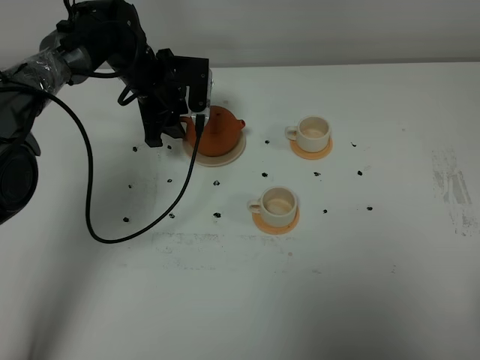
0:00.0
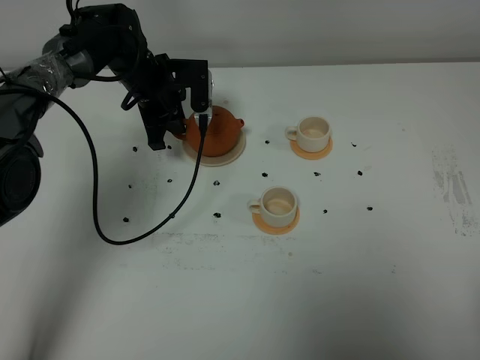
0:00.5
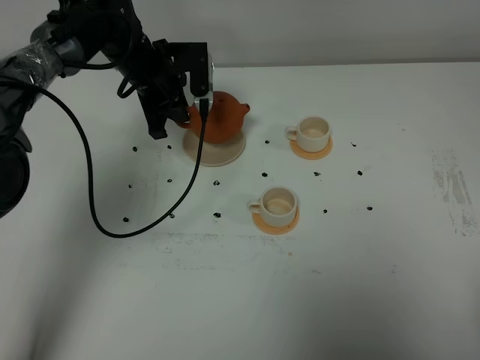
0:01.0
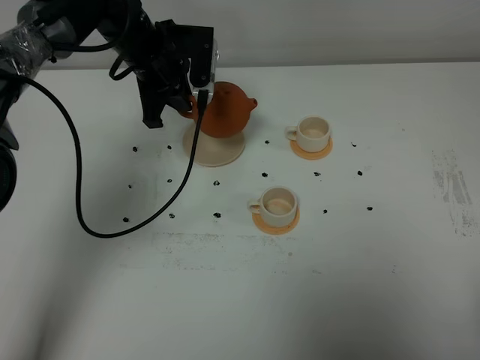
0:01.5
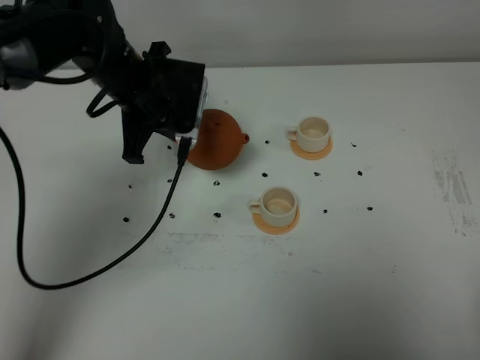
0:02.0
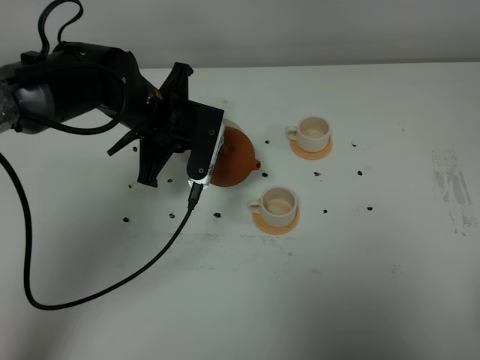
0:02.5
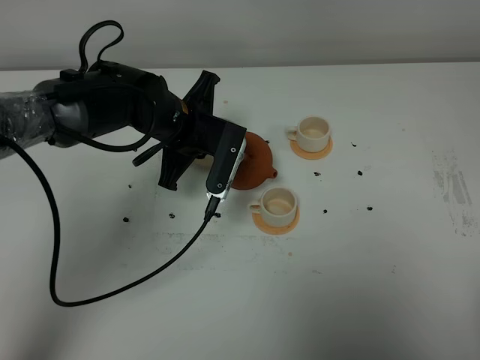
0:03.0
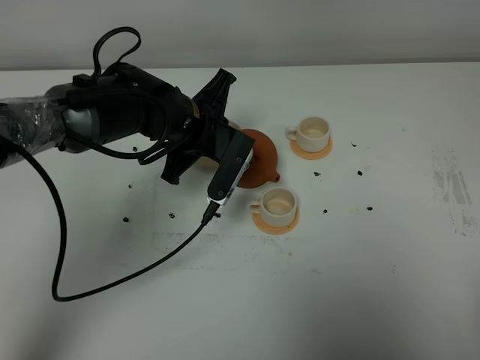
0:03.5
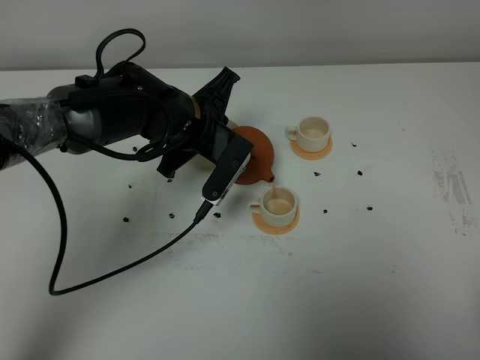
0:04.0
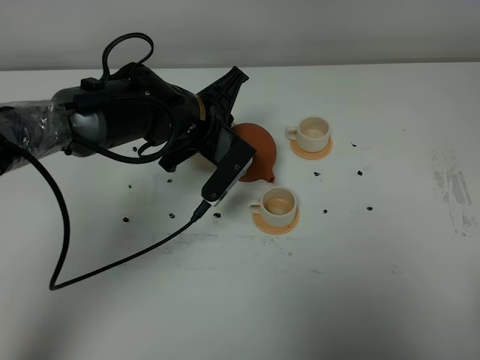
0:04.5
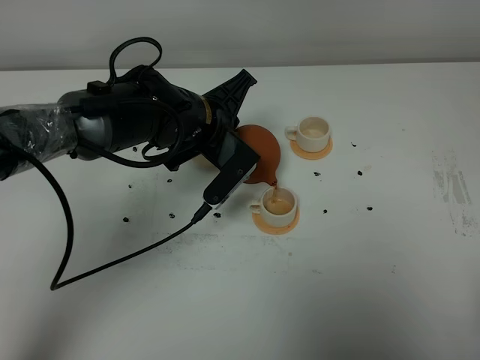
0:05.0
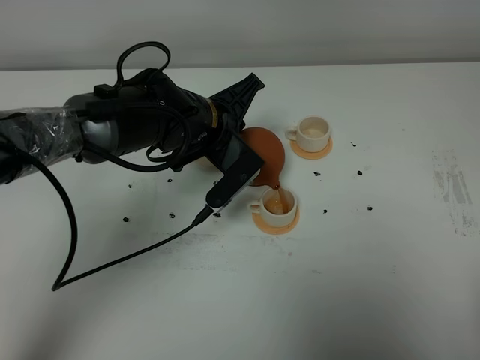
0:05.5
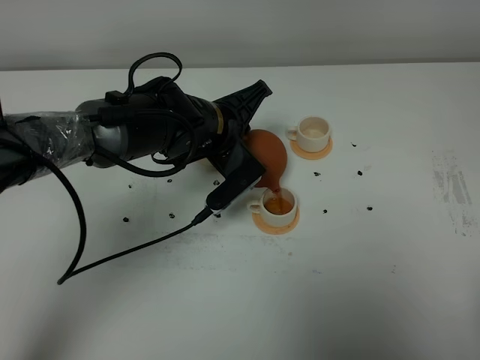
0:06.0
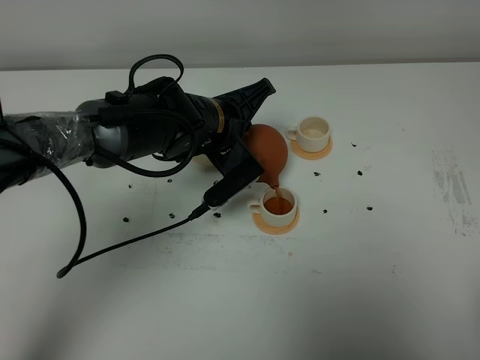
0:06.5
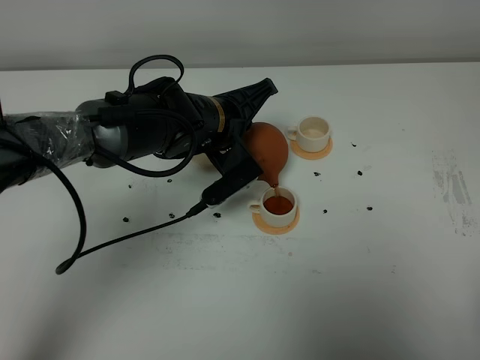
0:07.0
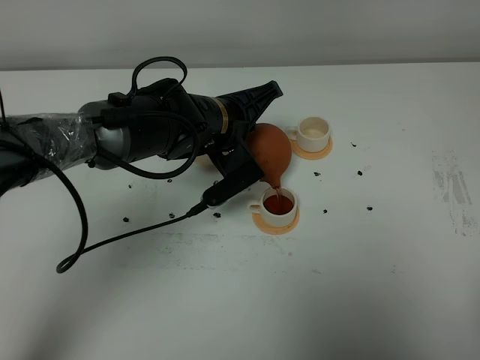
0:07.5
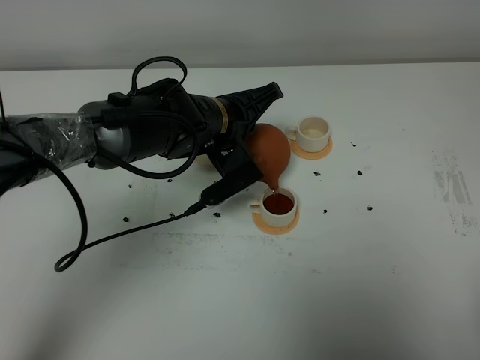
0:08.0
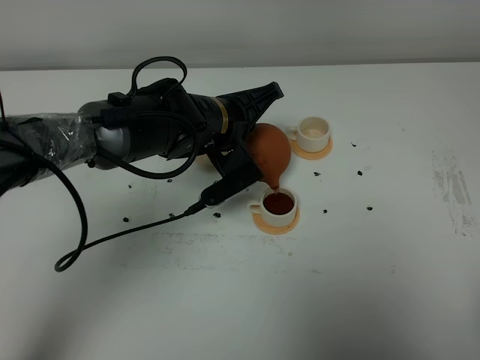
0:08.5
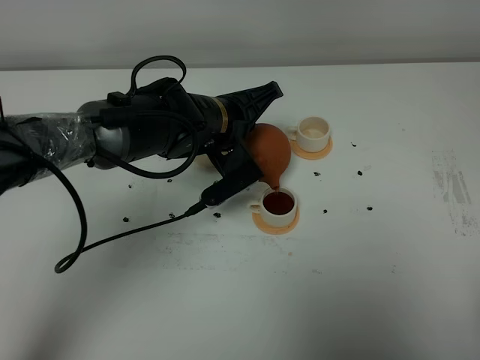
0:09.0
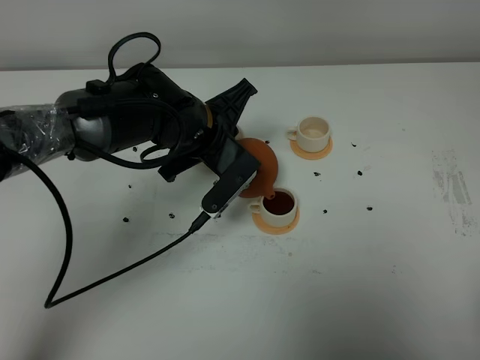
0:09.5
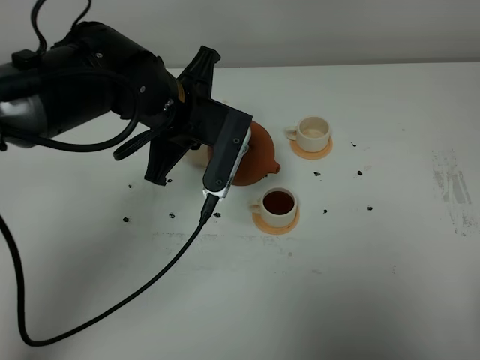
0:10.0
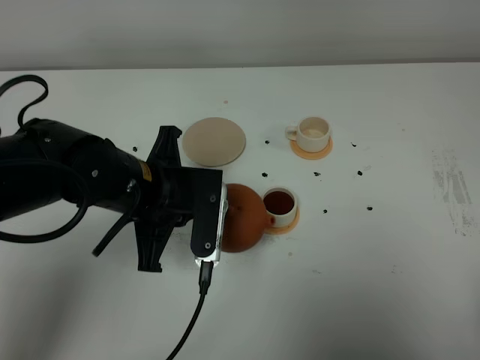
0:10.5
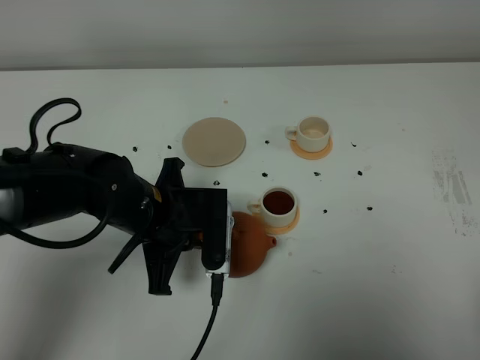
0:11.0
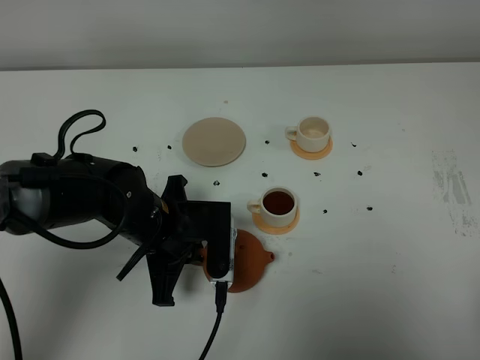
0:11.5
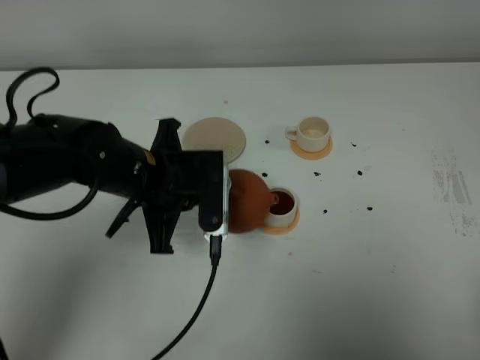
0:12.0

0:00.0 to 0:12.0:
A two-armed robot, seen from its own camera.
Task of the whole recording: grasp the brown teapot and pour the tea into the two white teacups one by one, put the brown teapot back in its original place.
Step, 0:01.0 to 0:09.5: Pour tea into the teacup with the left gripper.
0:00.0 to 0:02.0: The left gripper travels backward and upward by about 10 cm, and closes its fingers.
0:02.0 to 0:04.0: The left gripper travels to the right by about 5 cm.
0:04.0 to 0:06.0: The grippers stay close to where they were, moving slightly.
0:06.0 to 0:08.0: The grippers move only a little.
0:08.0 to 0:10.0: The left gripper shifts about 5 cm upward.
0:10.0 to 0:12.0: The left gripper shifts about 5 cm downward.

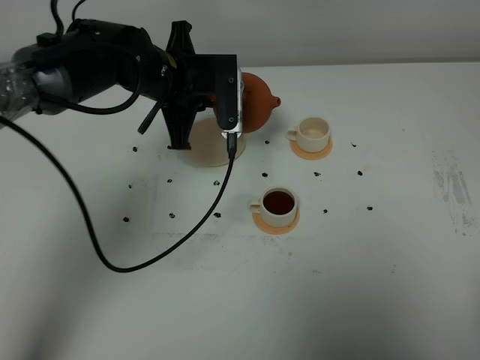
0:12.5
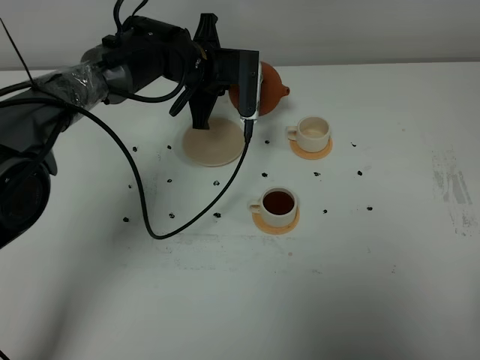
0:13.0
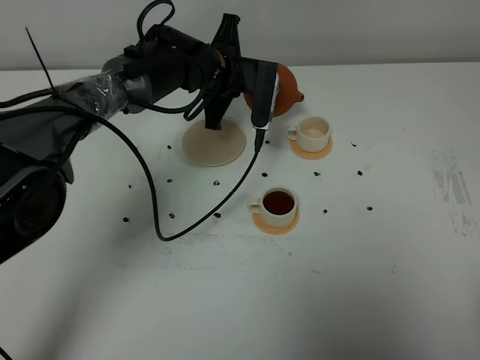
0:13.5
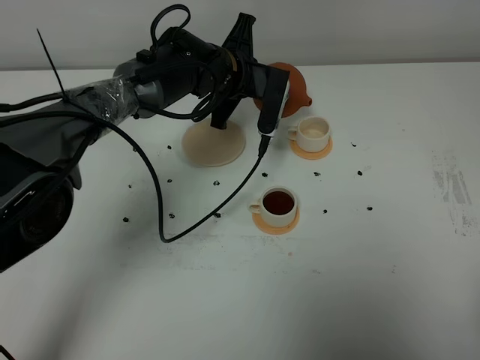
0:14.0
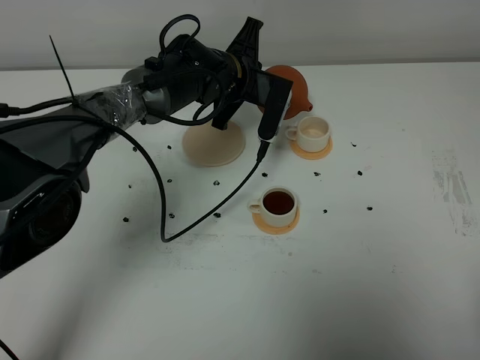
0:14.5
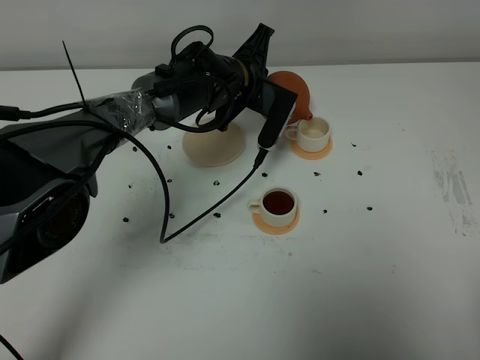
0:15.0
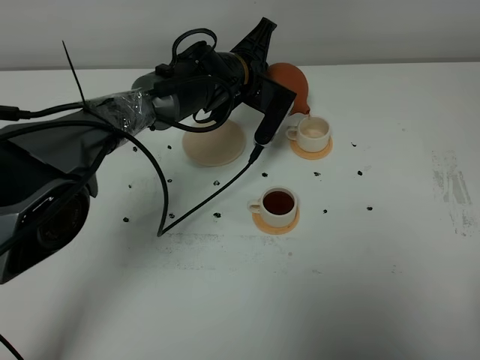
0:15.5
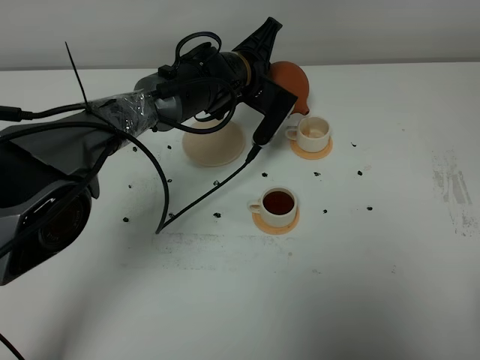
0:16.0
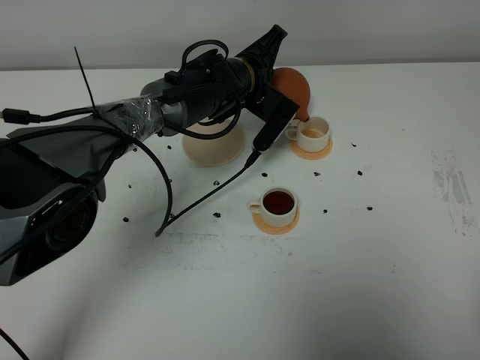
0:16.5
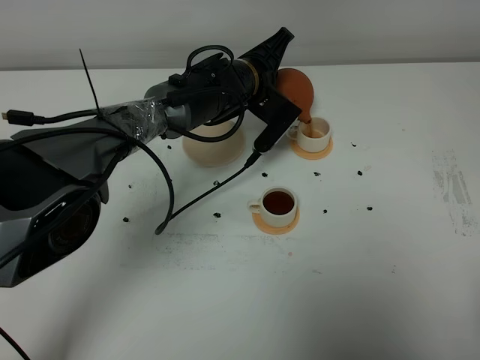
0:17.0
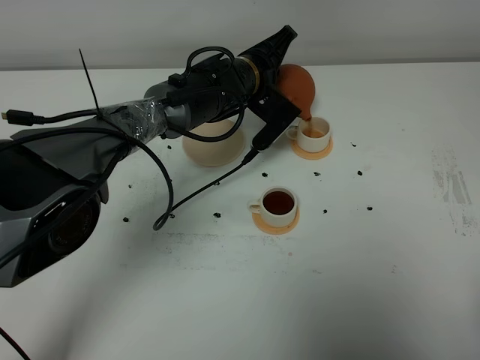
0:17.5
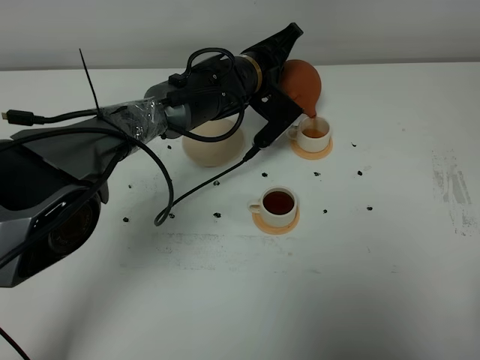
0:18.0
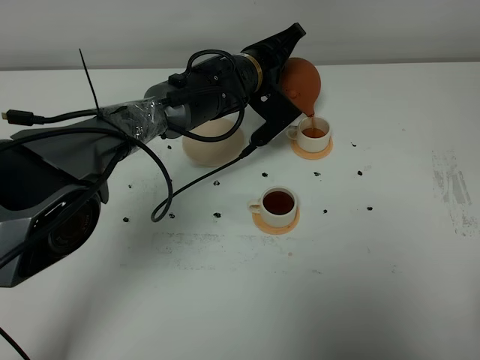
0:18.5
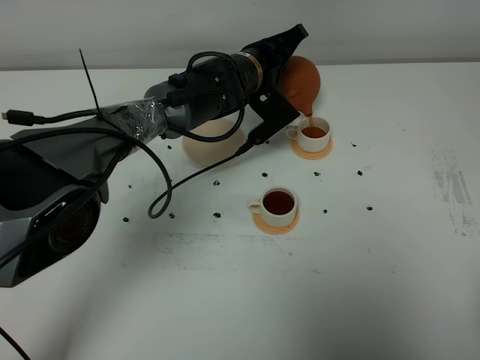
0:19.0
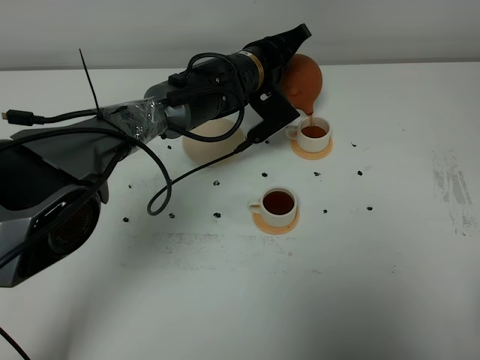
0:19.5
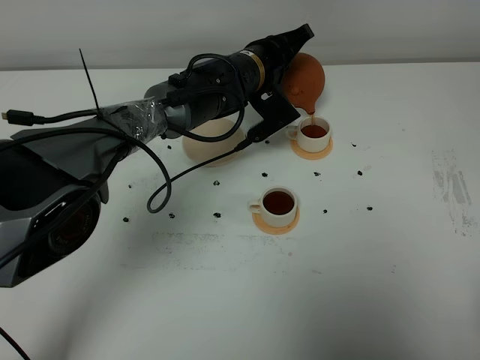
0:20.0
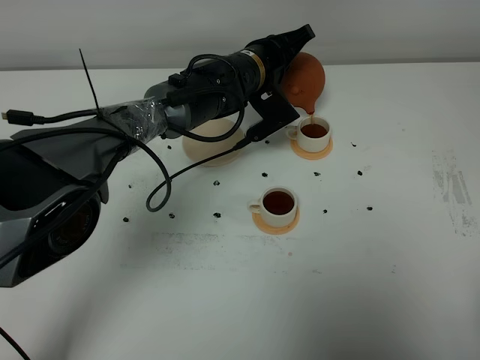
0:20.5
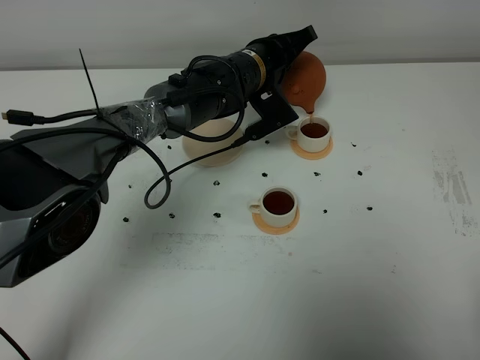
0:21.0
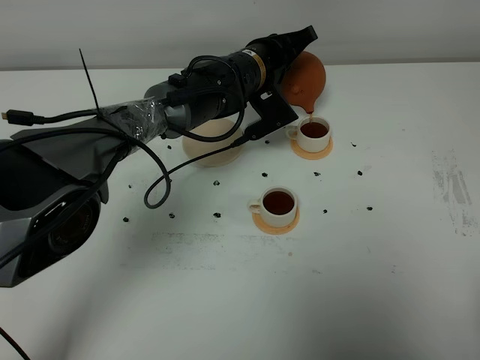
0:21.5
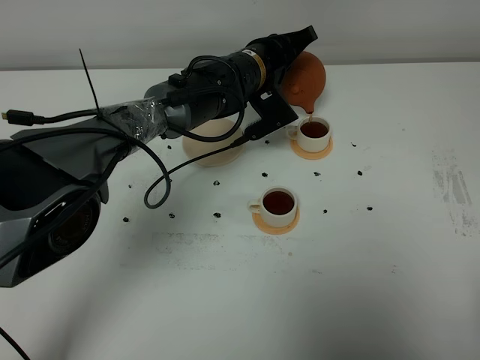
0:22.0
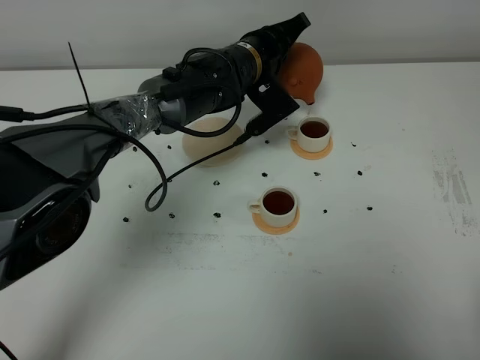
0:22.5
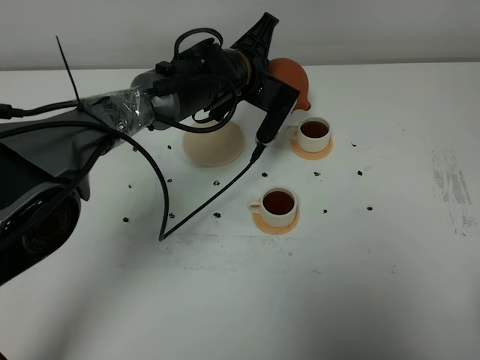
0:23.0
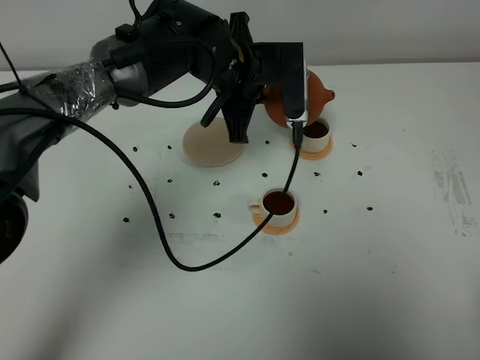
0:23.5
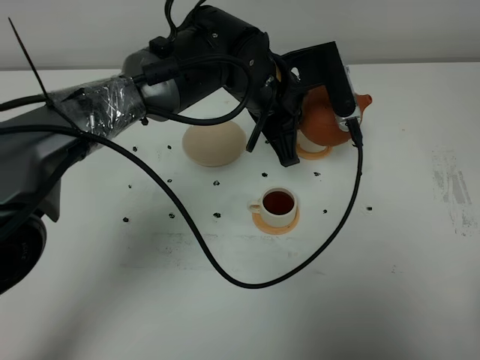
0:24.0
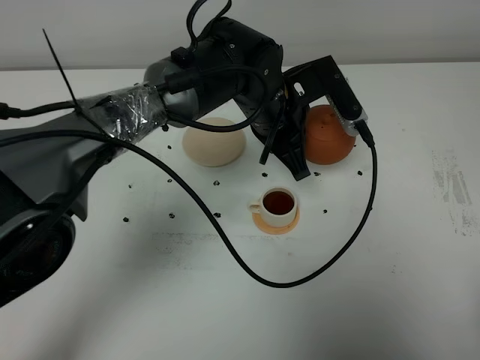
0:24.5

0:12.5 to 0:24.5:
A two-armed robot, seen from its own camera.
Task of the whole recording: grasp the brown teapot and pour the tea into the two white teacups one by one, put the brown teapot back in its original place.
Step, 0:12.5 to 0:22.5: Pour tea into the teacup with the left gripper.
0:12.5 to 0:14.5: The left gripper heads to the right, covering roughly 5 cm.
0:14.5 to 0:16.5: The grippers stay close to where they were, moving slightly.
0:16.5 to 0:18.5: There are only small adjustments of the grippers.
0:18.5 to 0:22.5: The grippers move only a little.
0:22.5 to 0:24.5: The left gripper goes roughly 10 cm backward.

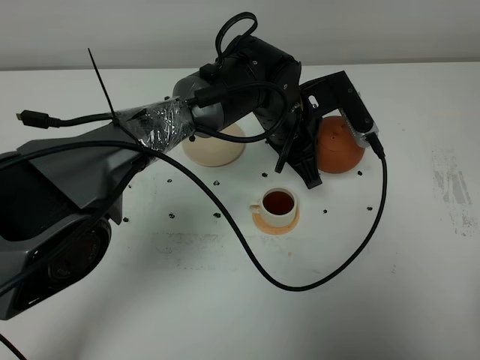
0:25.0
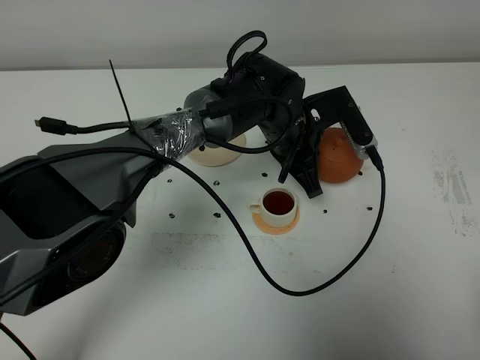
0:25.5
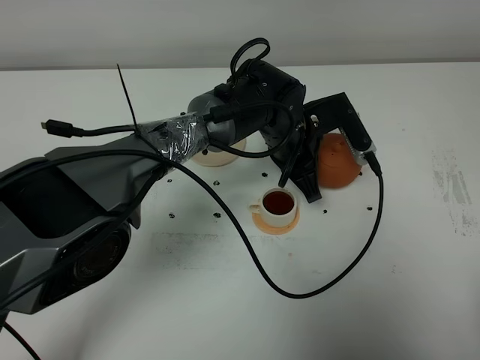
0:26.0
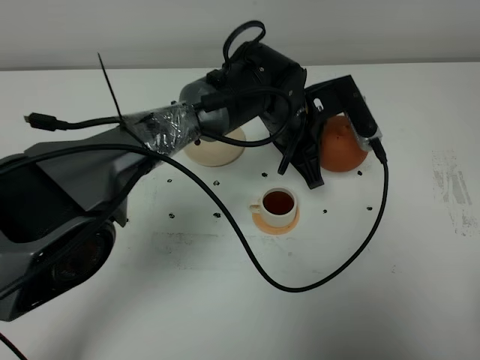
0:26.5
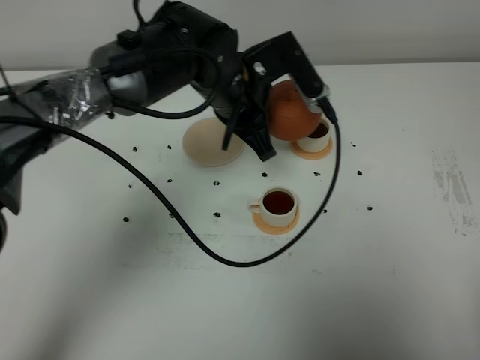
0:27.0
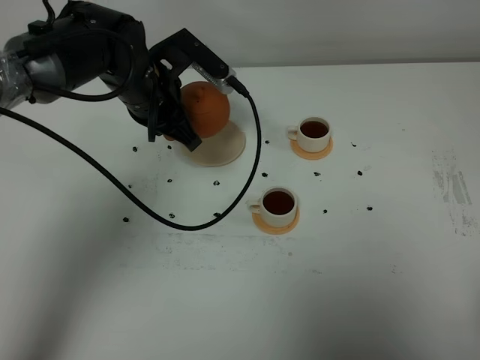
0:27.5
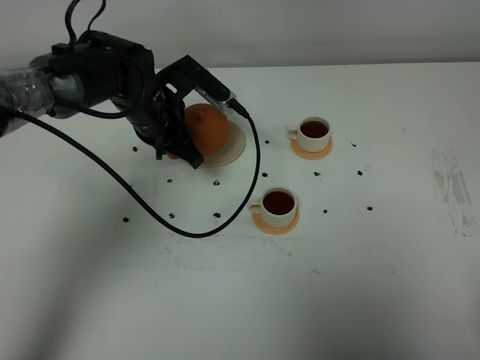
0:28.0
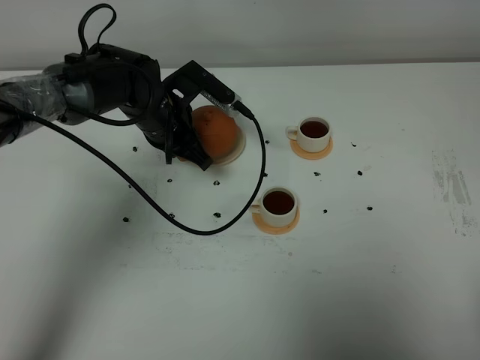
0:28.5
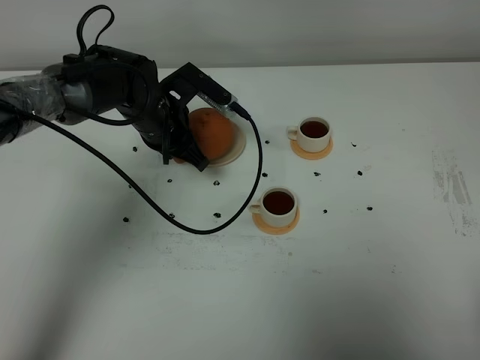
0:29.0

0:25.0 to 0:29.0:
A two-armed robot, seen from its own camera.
Task of the whole recording: grasp the brown teapot and pour the tea into the two white teacups one by one, put the brown teapot back in its original place.
0:25.0 to 0:27.0: The left gripper shifts about 10 cm to the left and upward.
0:27.0 to 0:29.0: The left gripper shifts approximately 15 cm to the left and downward.
